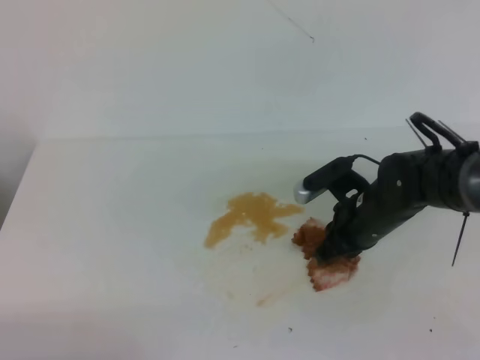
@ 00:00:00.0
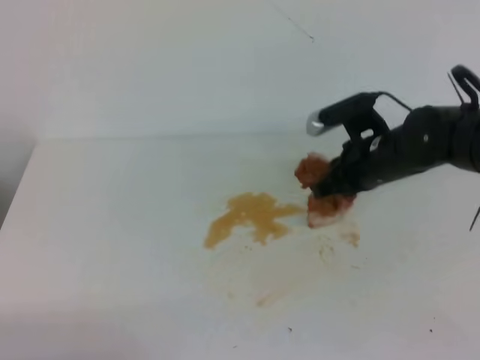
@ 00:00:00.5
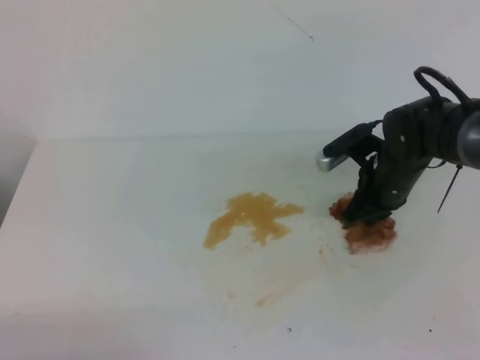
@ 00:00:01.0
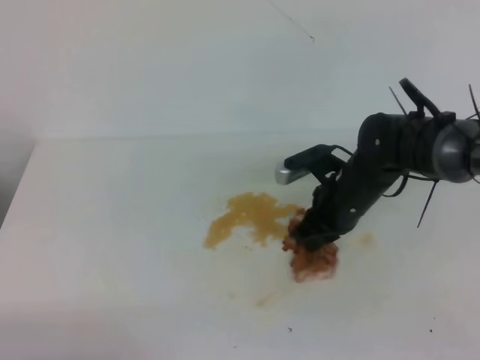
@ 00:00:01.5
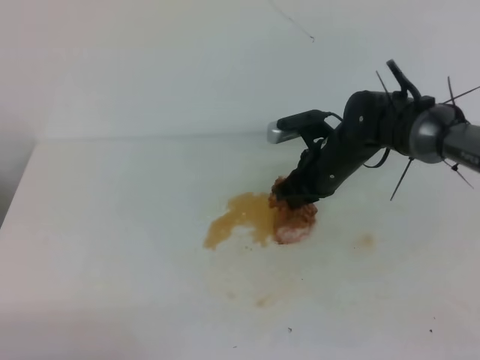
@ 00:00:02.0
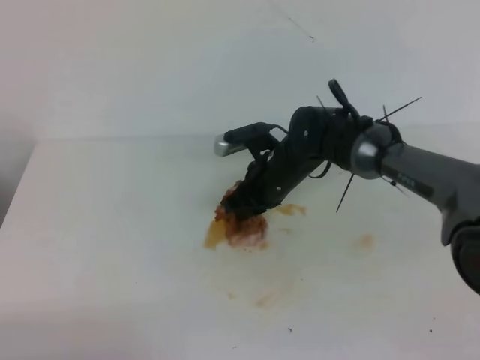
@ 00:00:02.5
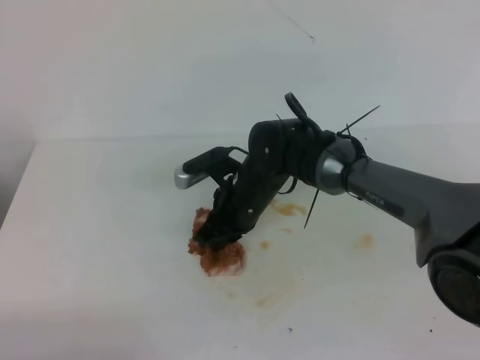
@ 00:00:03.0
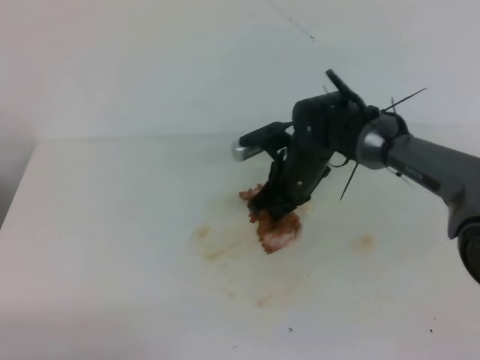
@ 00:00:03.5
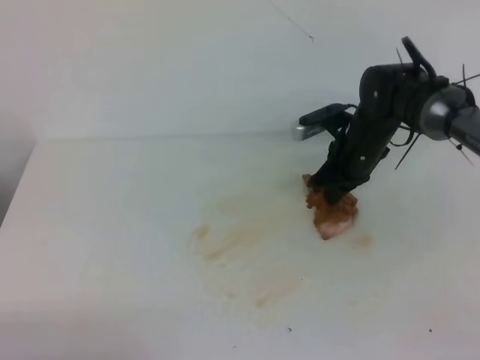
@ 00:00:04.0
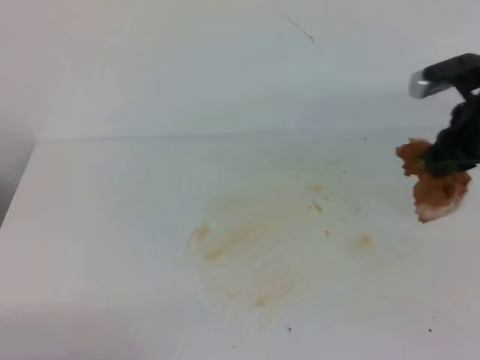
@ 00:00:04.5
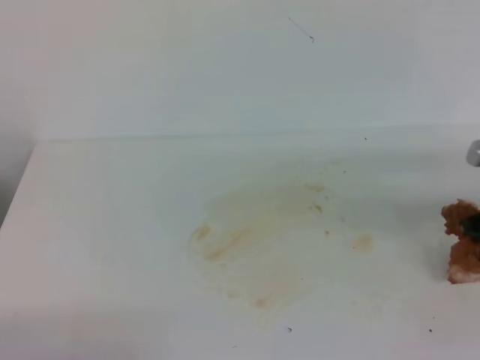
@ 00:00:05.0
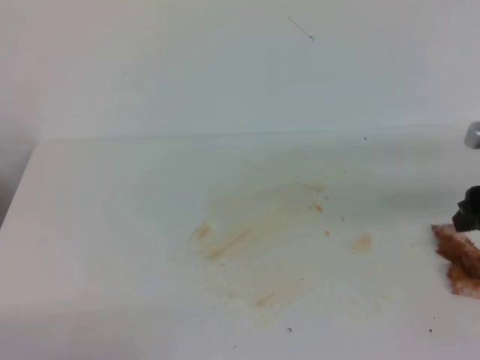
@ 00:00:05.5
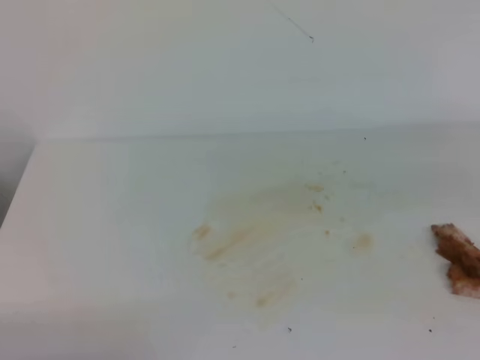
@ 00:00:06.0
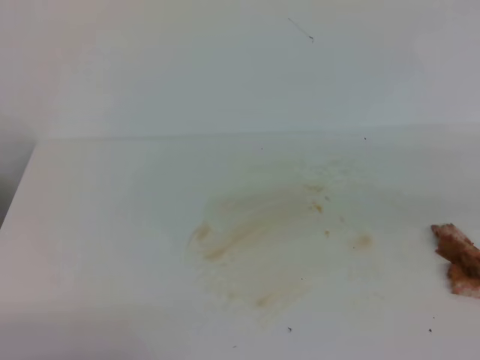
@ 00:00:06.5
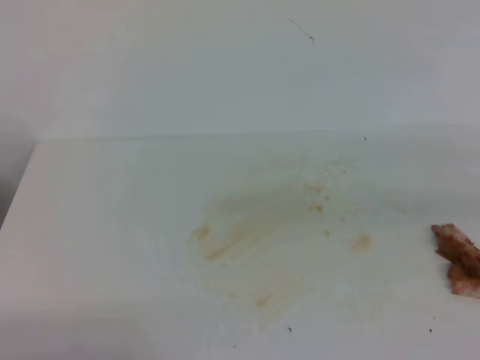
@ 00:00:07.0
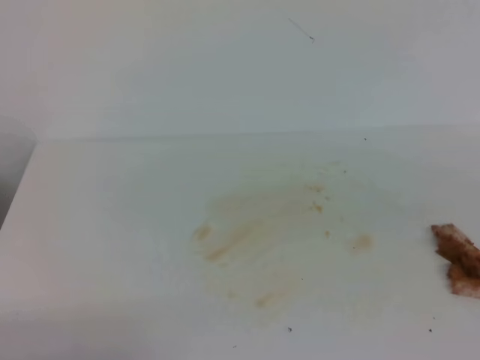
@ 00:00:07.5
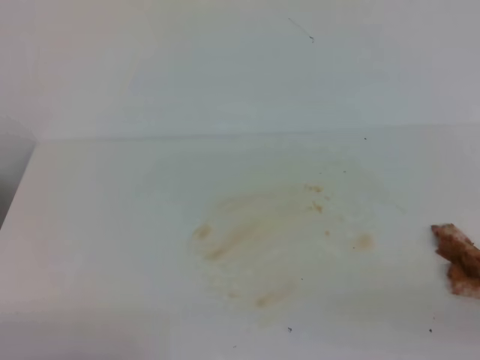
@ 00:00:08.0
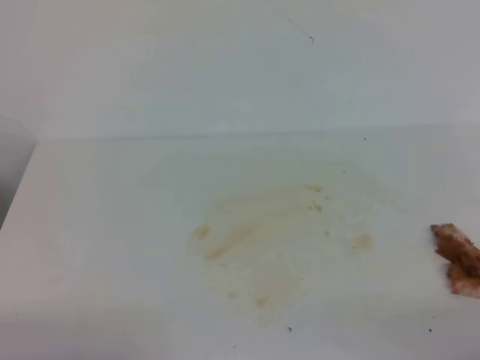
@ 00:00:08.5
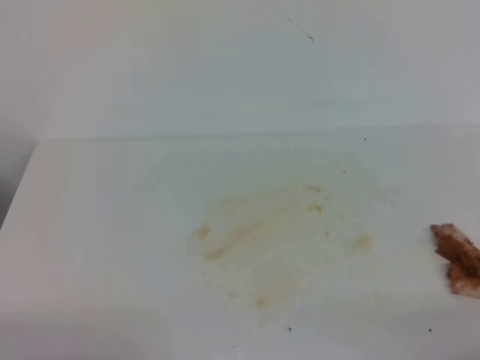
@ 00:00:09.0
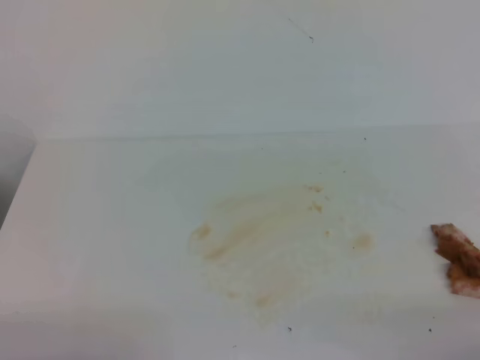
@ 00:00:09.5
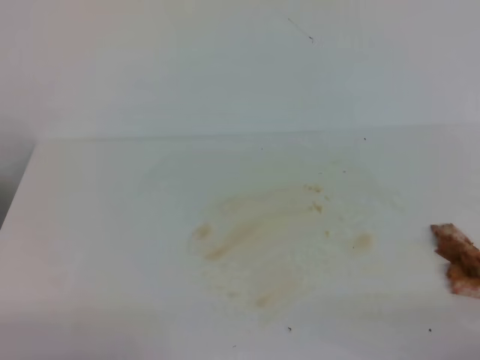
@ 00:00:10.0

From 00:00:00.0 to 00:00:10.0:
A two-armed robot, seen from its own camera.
From 00:00:00.0 to 00:00:02.0: The right gripper goes roughly 10 cm forward.
From 00:00:02.0 to 00:00:04.0: The right gripper moves some 10 cm to the left and comes back.
From 00:00:04.0 to 00:00:06.0: The right gripper shifts some 25 cm backward, to the right and upward, and opens, then closes once more.
